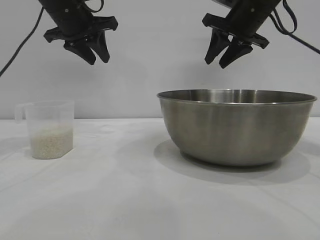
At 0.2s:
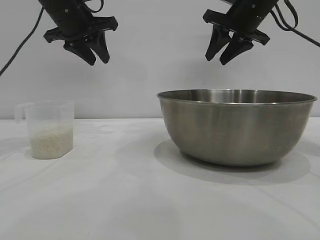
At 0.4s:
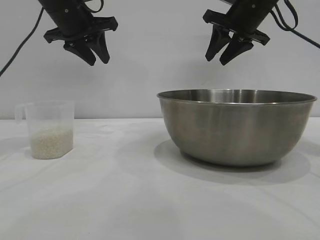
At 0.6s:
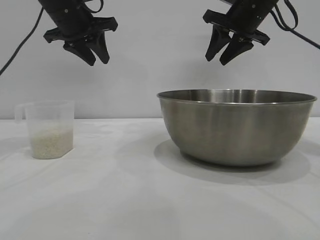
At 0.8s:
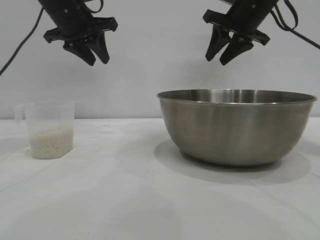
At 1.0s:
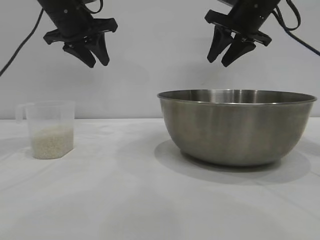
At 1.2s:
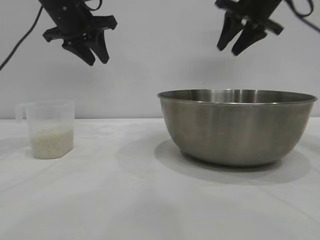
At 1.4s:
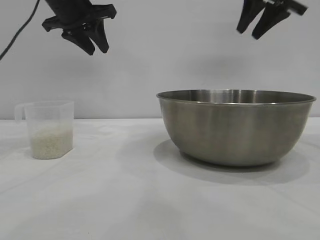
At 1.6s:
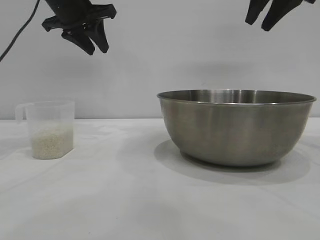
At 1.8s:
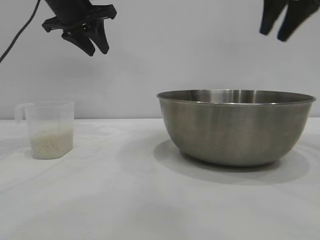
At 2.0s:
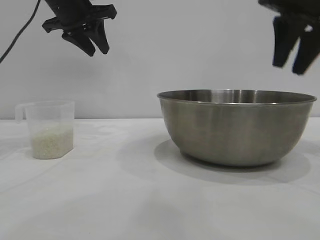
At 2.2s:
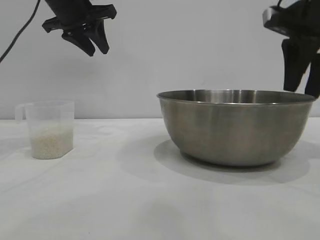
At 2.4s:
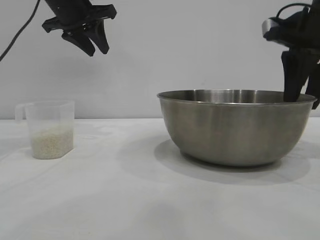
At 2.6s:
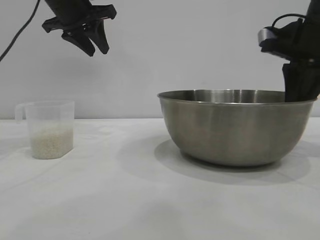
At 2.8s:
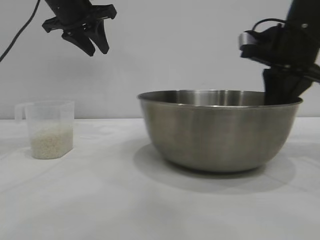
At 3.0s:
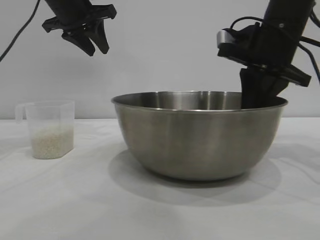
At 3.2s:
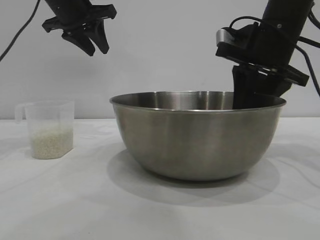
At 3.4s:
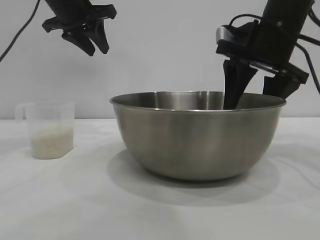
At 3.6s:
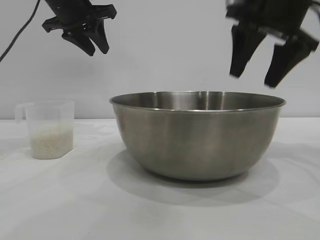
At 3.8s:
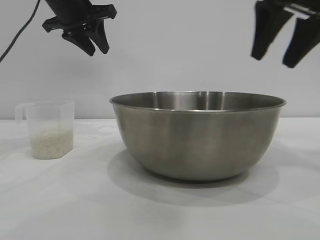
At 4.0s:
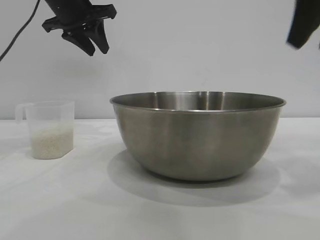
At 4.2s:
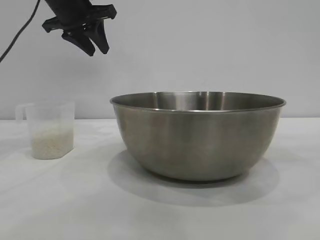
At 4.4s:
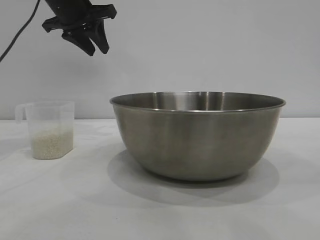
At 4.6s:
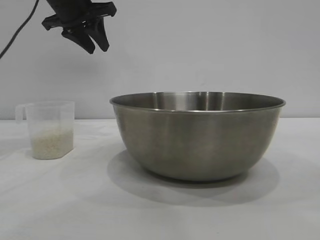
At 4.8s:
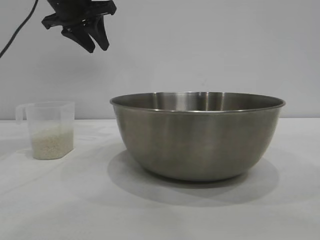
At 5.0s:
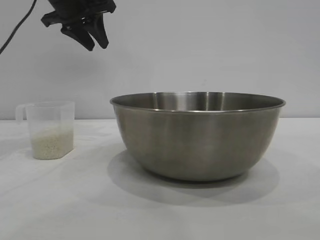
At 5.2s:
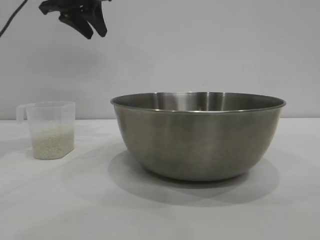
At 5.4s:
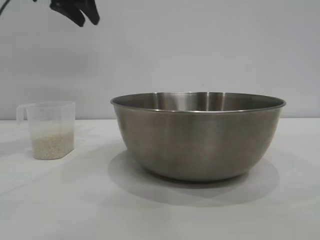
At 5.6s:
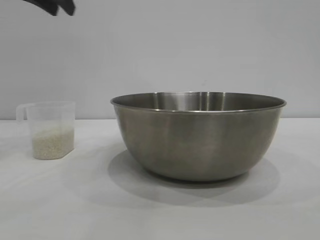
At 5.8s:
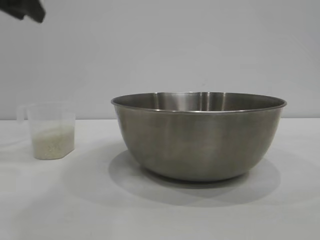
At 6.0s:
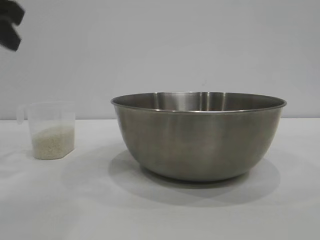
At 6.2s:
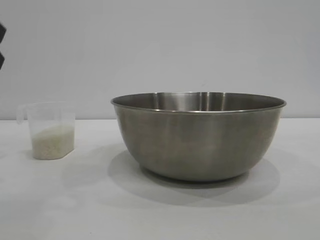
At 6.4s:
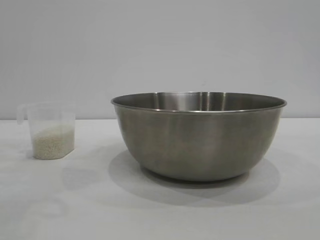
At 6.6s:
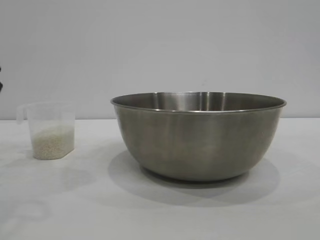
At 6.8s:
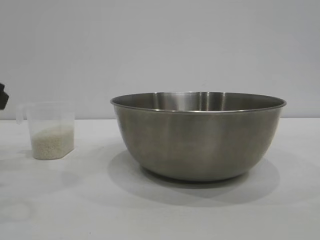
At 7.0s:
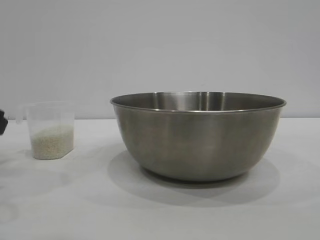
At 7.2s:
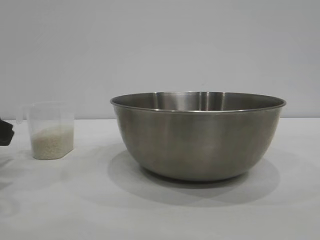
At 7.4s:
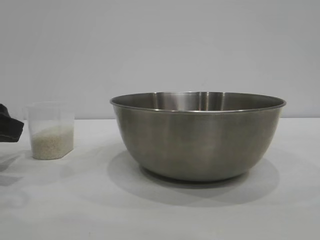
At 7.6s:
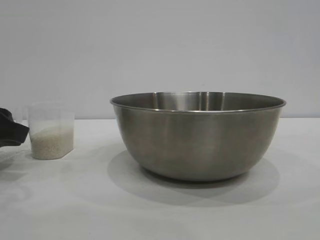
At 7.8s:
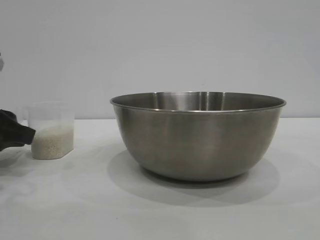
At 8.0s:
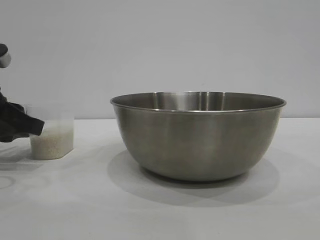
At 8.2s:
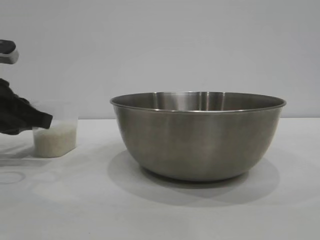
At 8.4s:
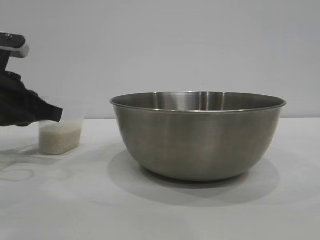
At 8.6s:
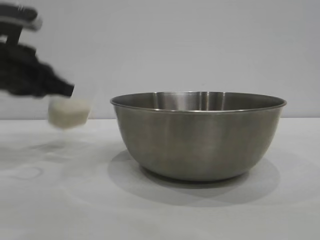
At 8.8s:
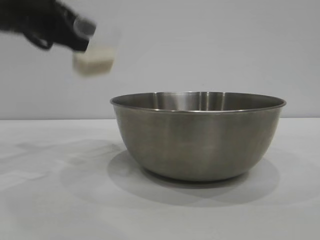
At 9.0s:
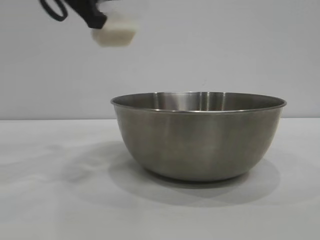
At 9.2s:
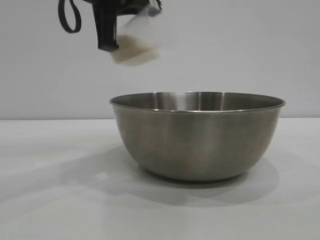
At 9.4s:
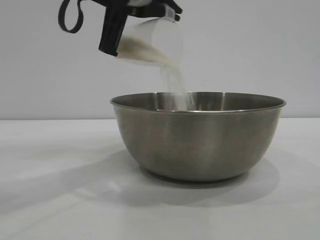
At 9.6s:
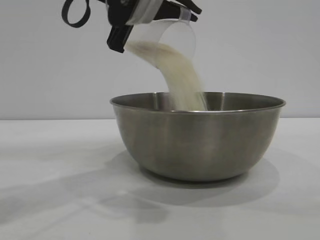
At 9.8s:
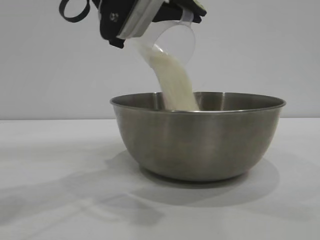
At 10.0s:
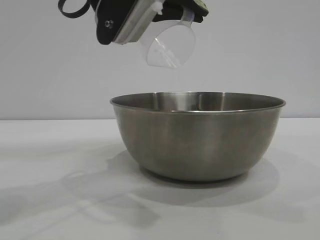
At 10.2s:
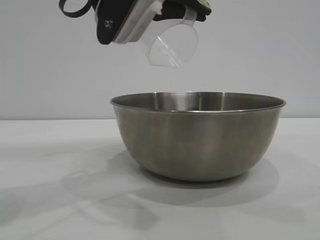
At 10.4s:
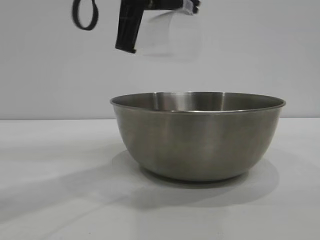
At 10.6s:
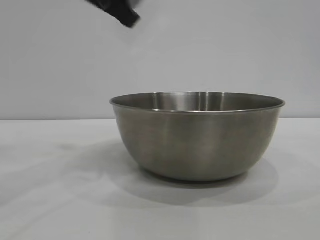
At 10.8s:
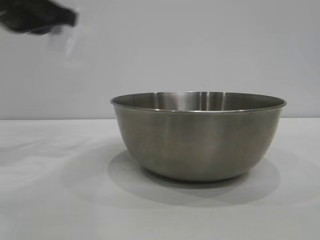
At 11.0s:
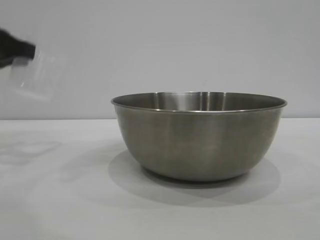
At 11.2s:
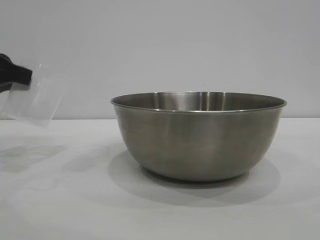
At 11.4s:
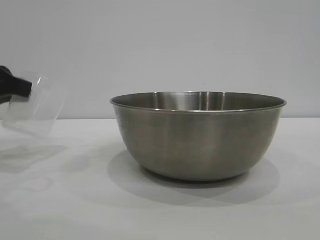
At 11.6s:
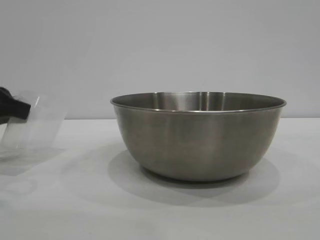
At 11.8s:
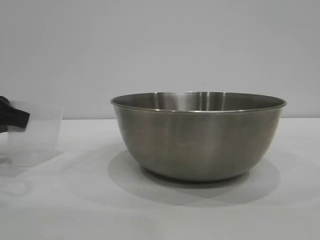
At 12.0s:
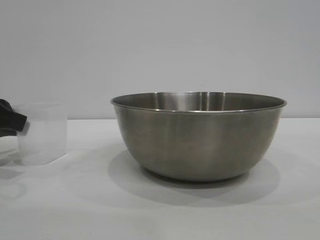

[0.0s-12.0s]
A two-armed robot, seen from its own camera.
Task of the whole recording: the right gripper grasp the rice container and place it in the center of the table, the left gripper grasp the rice scoop and pour the rice into the rice container.
Step, 0.0s to 3.6s: Move the bowl to the center of view with the right gripper.
Step, 3.8s to 8.6s: Pick up the cup with rice in it with the left gripper.
Step, 8.8s to 9.8s: Pour the rice from the cup into the bowl with the left gripper.
